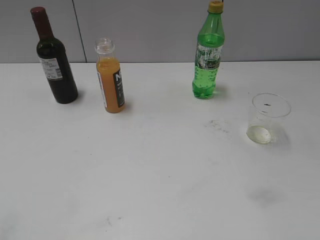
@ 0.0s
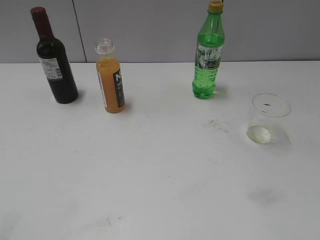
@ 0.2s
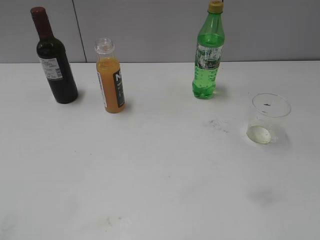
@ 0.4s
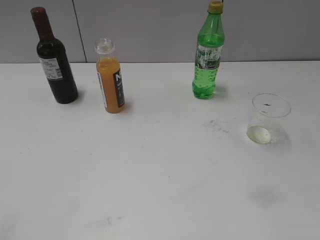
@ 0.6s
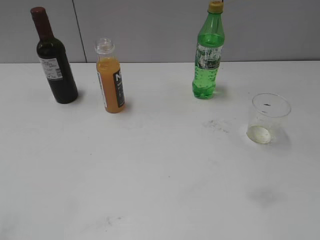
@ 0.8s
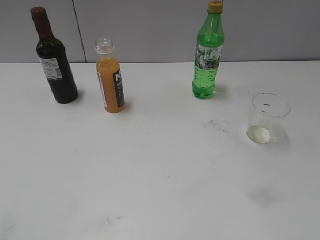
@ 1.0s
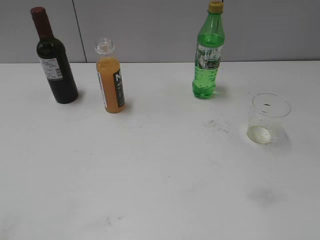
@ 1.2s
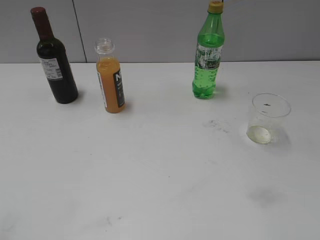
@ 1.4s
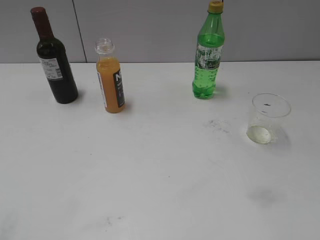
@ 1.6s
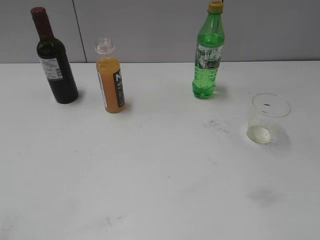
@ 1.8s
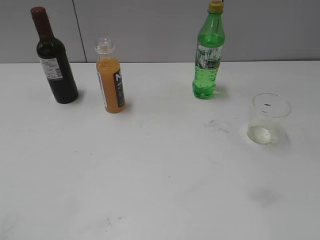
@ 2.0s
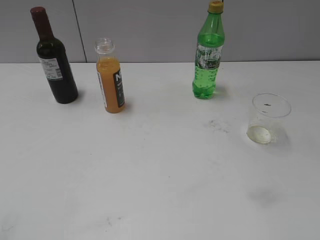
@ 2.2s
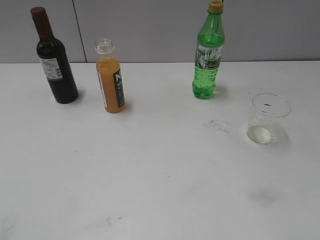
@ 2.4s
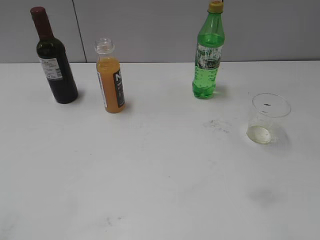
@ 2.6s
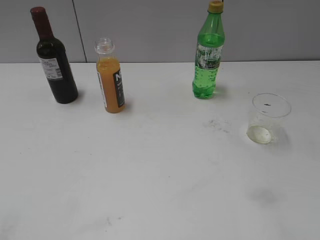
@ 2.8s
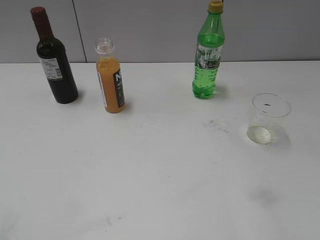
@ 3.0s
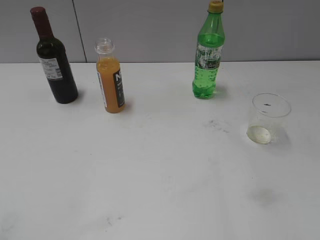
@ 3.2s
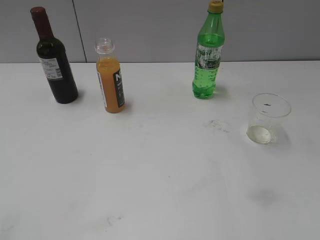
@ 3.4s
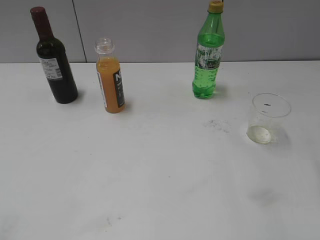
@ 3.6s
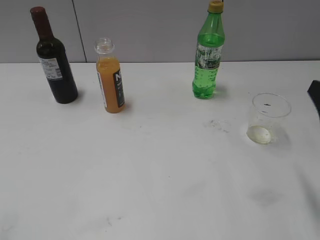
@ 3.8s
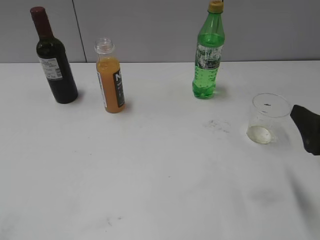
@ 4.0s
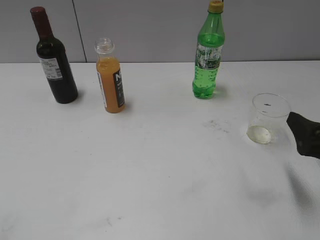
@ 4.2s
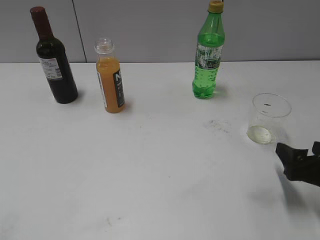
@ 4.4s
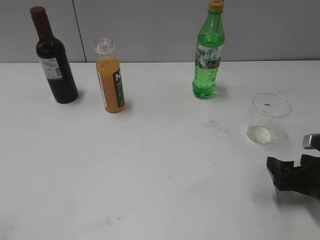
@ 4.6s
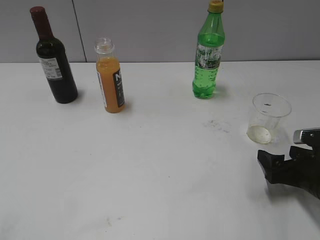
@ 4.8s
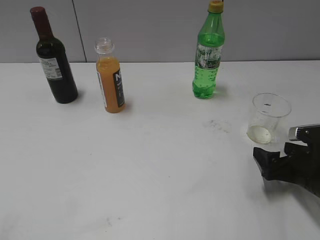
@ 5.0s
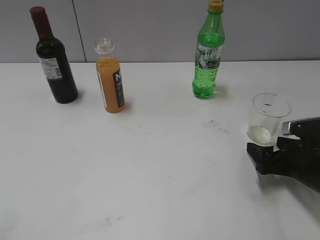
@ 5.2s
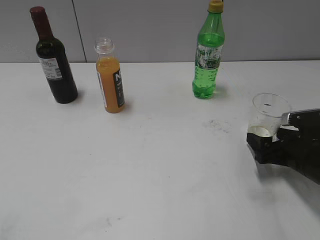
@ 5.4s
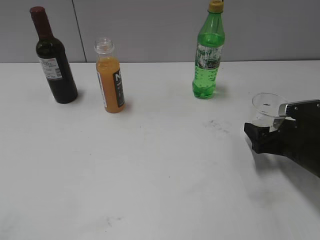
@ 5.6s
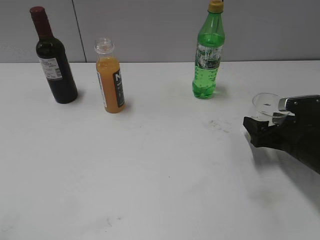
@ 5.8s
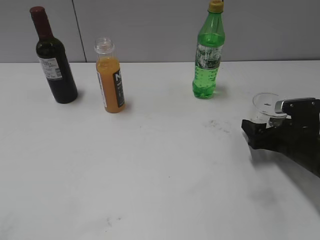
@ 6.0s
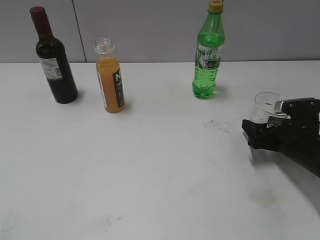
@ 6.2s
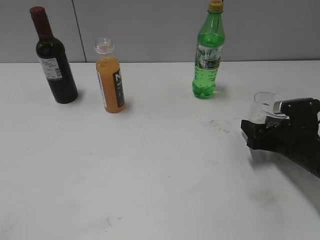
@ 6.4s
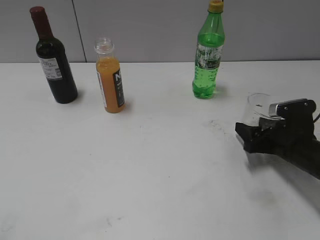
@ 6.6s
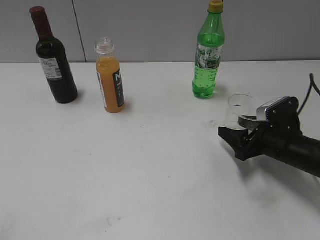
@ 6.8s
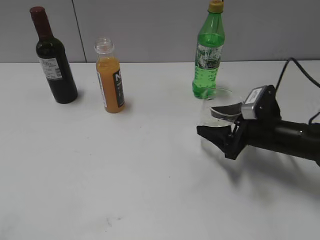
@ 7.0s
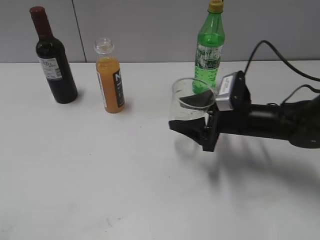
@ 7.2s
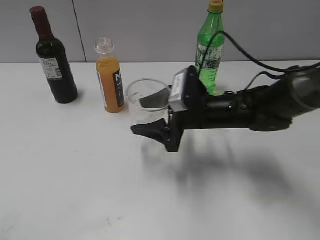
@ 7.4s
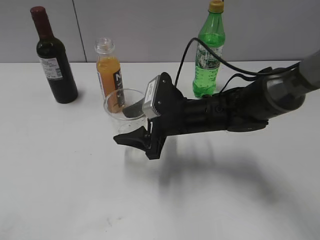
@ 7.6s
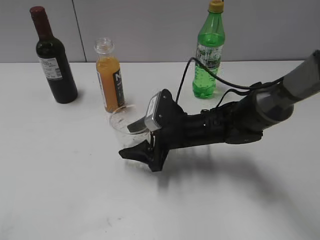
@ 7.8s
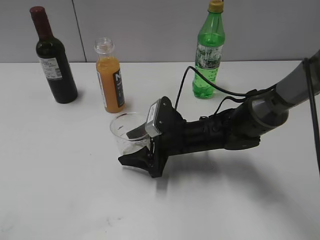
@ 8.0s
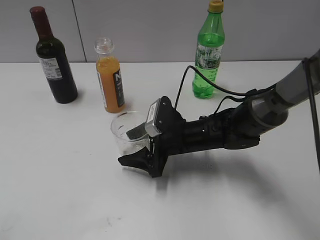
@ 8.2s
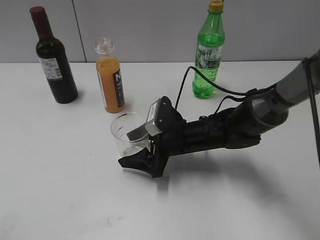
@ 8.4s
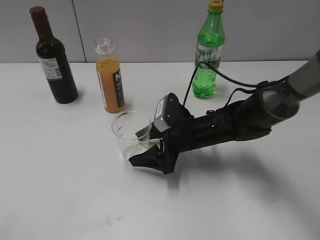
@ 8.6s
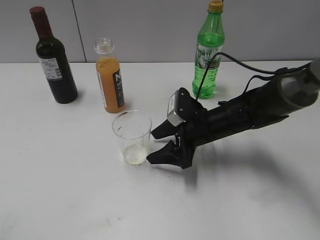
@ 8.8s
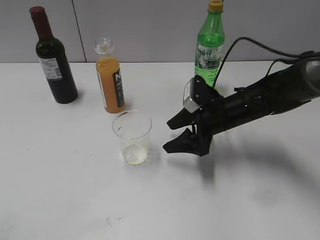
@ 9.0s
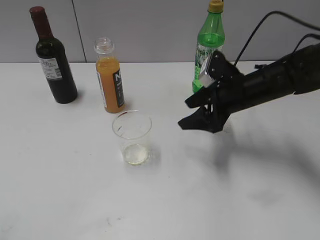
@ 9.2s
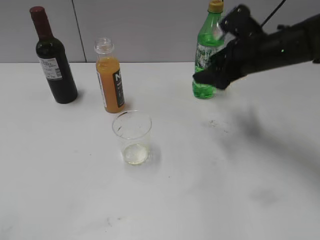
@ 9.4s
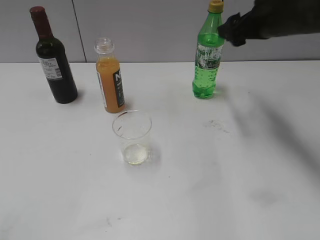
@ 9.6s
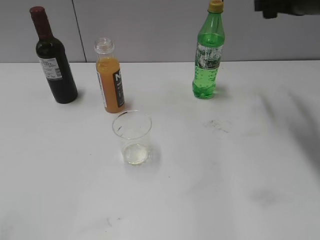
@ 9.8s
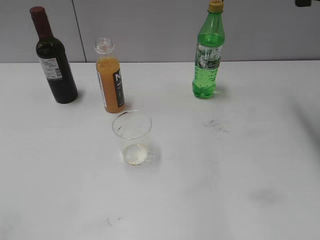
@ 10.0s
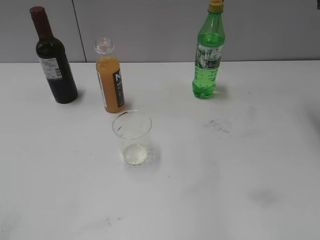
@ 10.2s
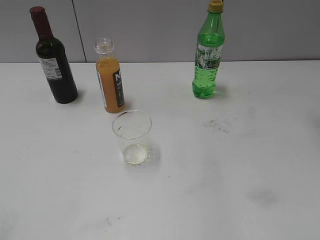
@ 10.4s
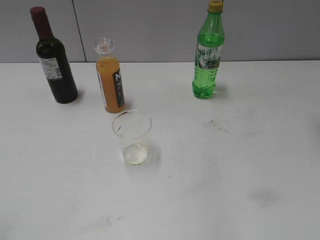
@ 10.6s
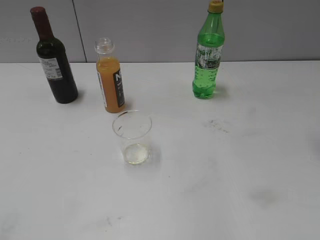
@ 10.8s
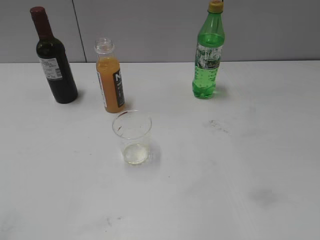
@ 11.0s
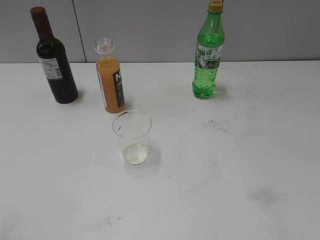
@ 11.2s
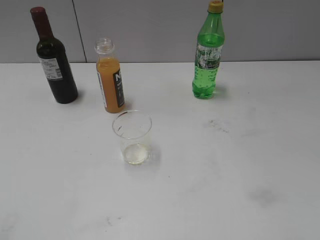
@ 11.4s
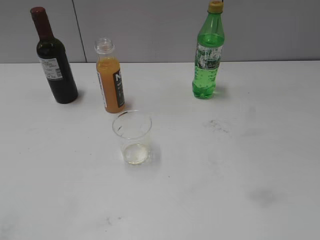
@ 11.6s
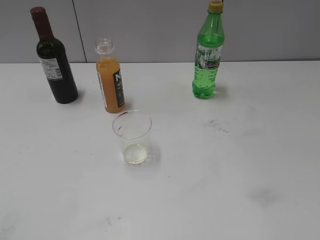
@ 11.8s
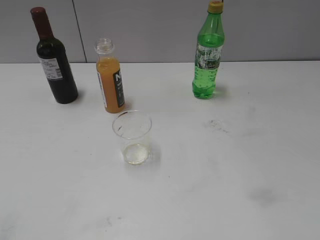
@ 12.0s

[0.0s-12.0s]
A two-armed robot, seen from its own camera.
Step, 3.8s to 6.2s: Grasp the transparent cup with right gripper.
Step, 6.4s to 8.8s: Place the transparent cup on the table with right gripper.
3.0s to 4.4s: The right gripper heads downward, covering approximately 25 cm, and opens up.
4.4s to 6.0s: The right gripper is displaced forward by about 10 cm.
6.0s to 7.6s: The right gripper is displaced to the left by some 20 cm, and closes up.
7.6s to 9.0s: The right gripper heads to the right, covering roughly 10 cm, and opens.
9.0s to 10.4s: The right gripper goes about 35 cm upward and to the right.

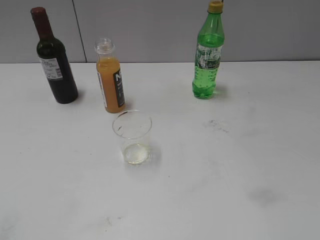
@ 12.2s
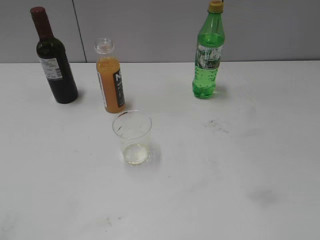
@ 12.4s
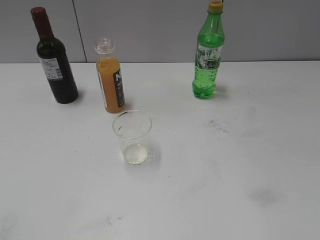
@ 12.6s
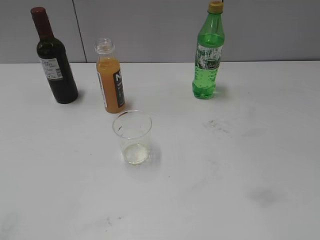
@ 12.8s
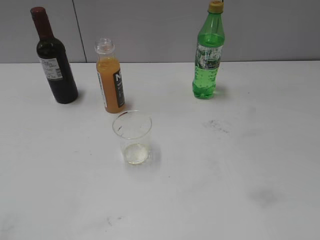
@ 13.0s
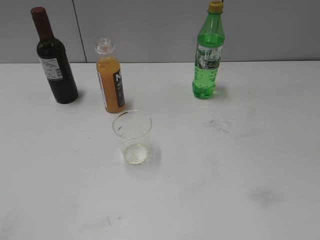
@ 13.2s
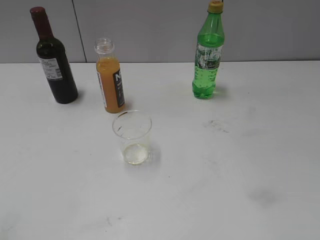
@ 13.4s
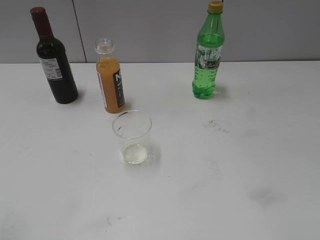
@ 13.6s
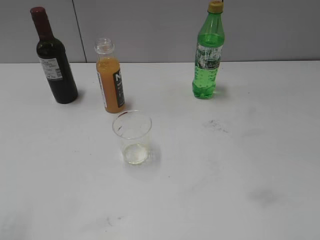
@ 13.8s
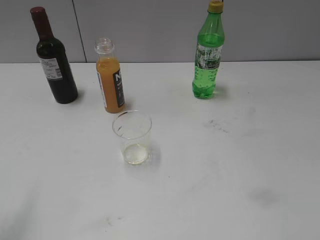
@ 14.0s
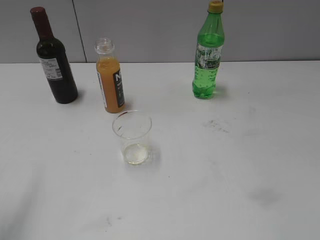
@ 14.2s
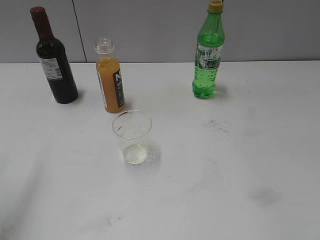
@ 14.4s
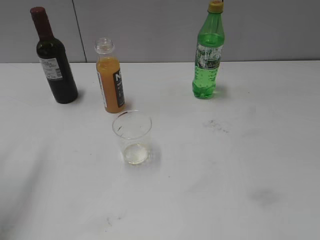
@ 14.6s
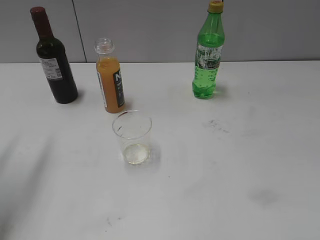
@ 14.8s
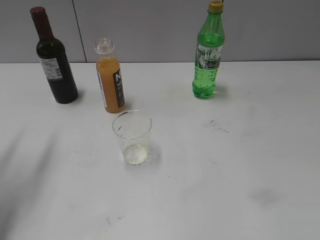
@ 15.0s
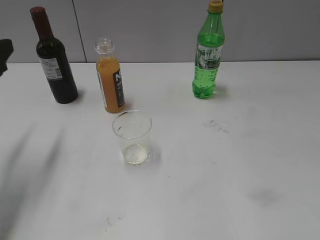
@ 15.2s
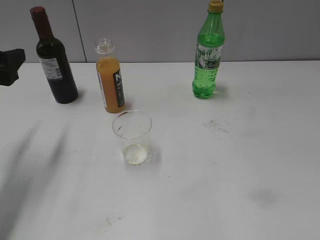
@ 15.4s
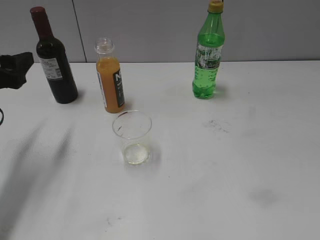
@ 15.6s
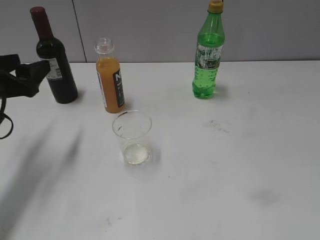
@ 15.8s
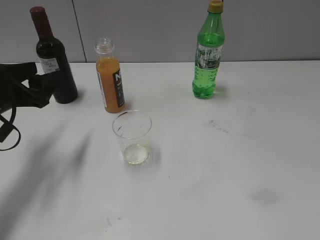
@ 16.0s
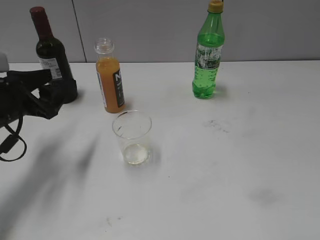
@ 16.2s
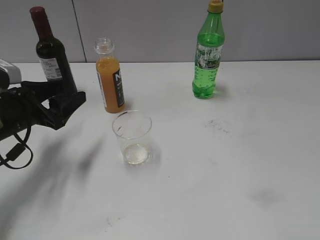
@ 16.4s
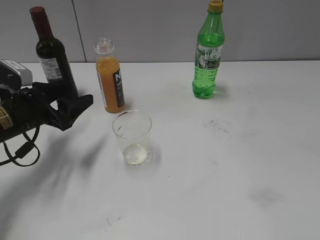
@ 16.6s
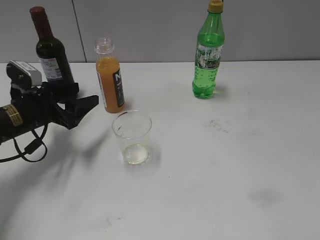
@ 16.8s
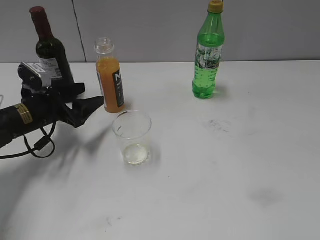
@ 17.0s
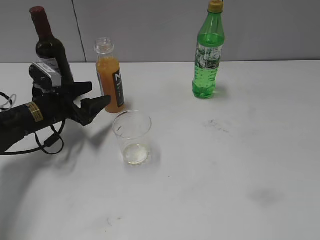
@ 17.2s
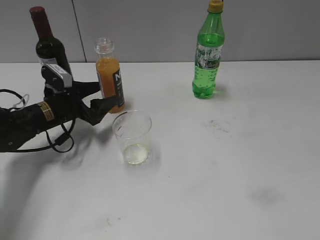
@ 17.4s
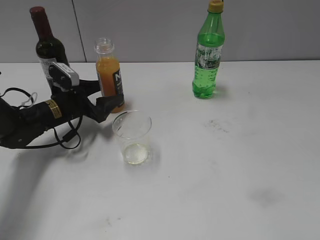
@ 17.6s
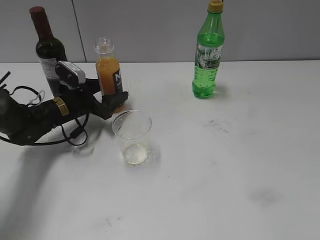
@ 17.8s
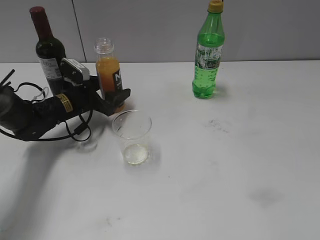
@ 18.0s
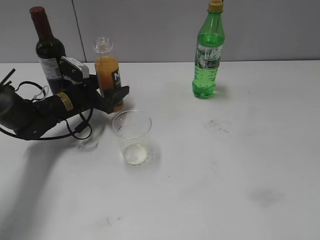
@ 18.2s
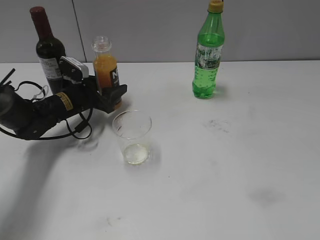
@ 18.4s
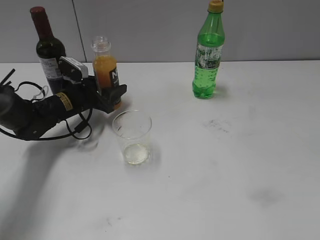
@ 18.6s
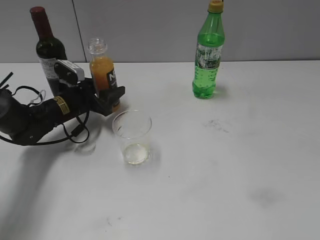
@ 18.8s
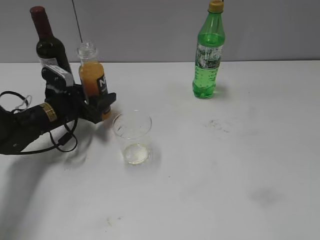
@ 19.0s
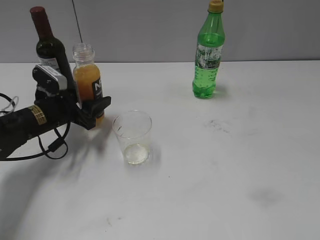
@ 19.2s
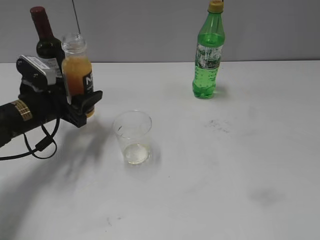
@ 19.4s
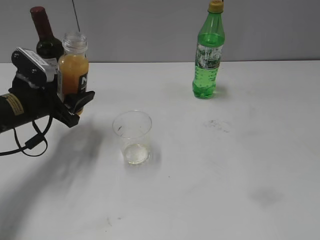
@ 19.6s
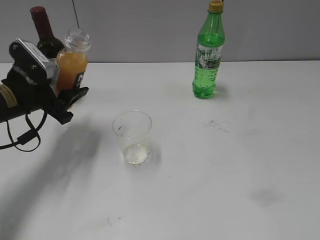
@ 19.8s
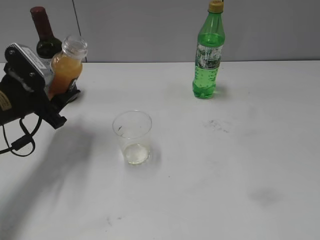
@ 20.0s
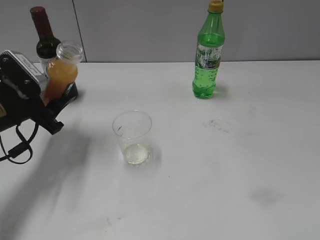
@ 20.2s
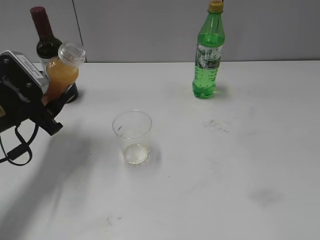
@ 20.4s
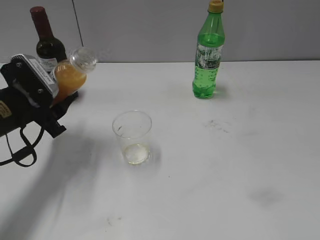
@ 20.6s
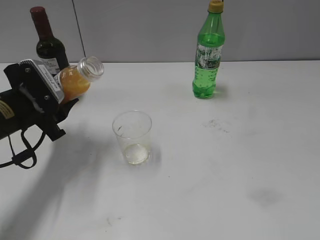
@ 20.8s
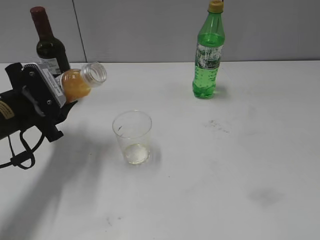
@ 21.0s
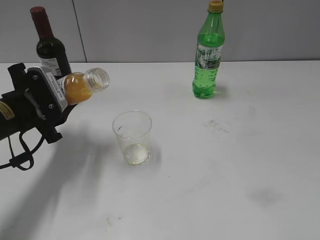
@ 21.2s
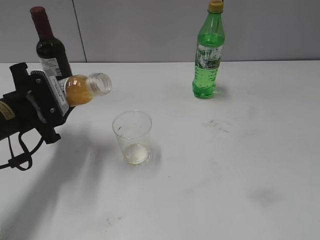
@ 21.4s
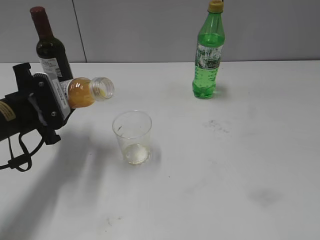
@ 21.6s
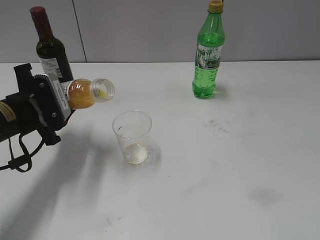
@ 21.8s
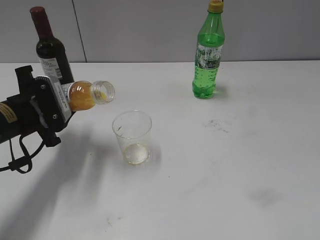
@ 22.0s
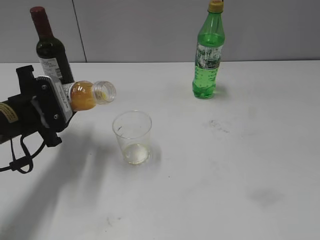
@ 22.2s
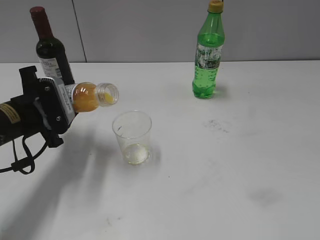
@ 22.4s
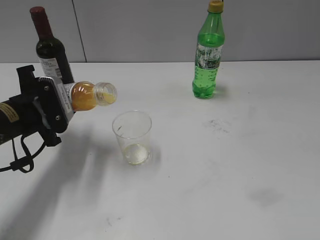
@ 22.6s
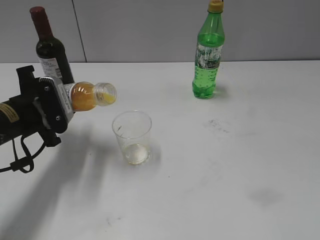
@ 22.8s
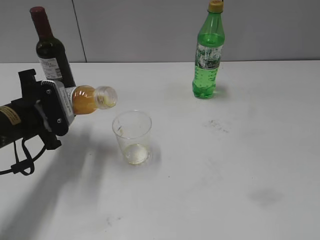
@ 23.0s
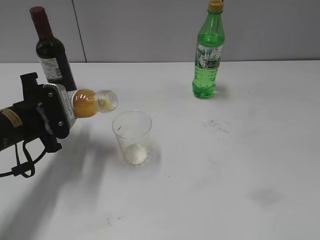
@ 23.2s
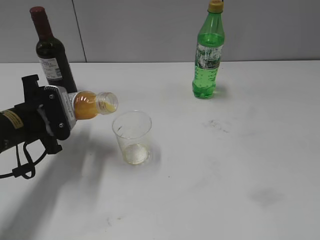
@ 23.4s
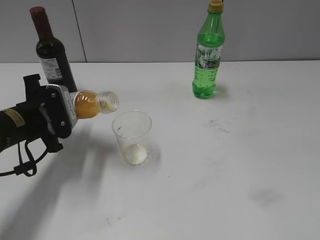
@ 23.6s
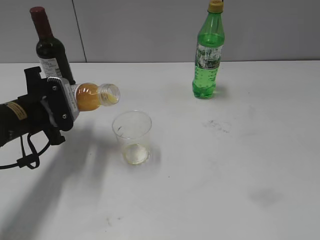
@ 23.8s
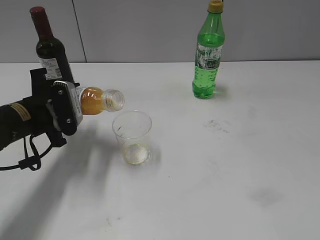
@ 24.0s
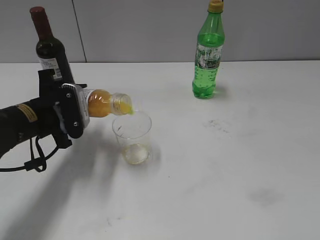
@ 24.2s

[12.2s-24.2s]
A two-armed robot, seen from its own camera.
Step, 12.2s to 18.4s: Grasp the bottle with orange juice with left gripper.
13.8s to 15.2s: The left gripper travels forward and downward by approximately 20 cm.
15.2s to 16.6s: The left gripper goes approximately 15 cm downward and to the right.
16.6s to 18.2s: The left gripper travels forward, downward and to the right by some 15 cm.
18.2s to 19.8s: The left gripper travels backward, upward and to the left by approximately 15 cm, and closes its fingers.
21.2s to 24.2s: The grippers move only a little.
